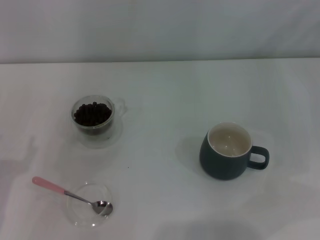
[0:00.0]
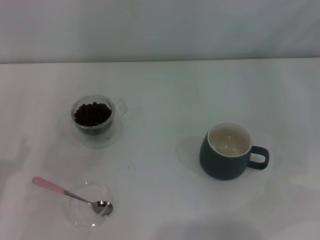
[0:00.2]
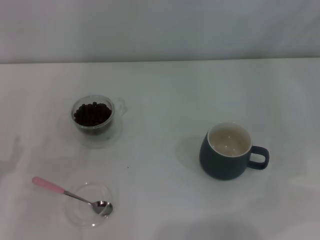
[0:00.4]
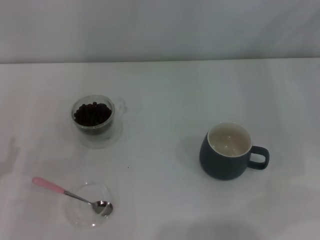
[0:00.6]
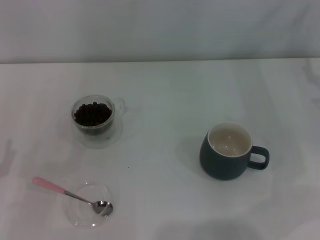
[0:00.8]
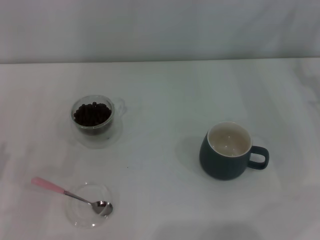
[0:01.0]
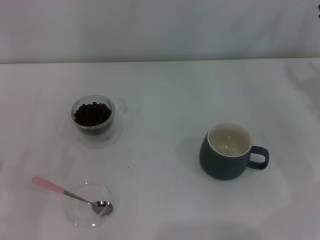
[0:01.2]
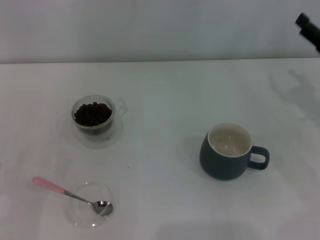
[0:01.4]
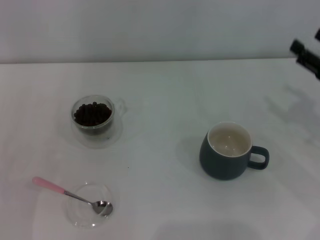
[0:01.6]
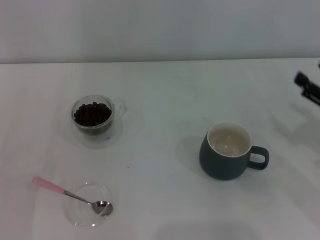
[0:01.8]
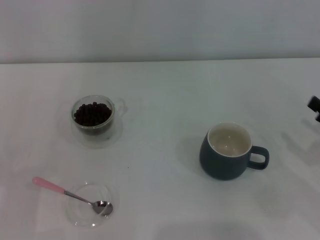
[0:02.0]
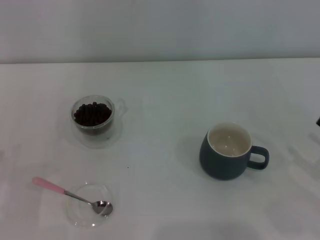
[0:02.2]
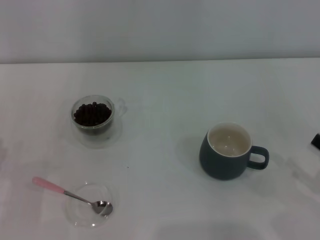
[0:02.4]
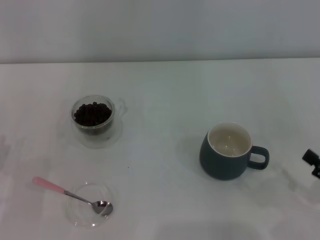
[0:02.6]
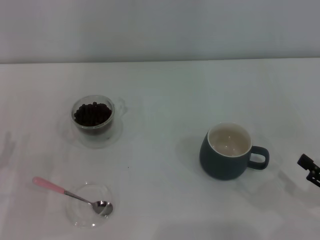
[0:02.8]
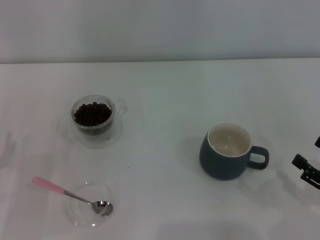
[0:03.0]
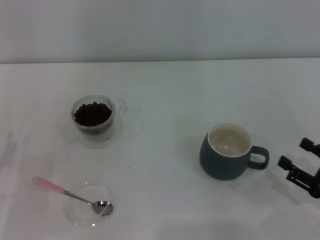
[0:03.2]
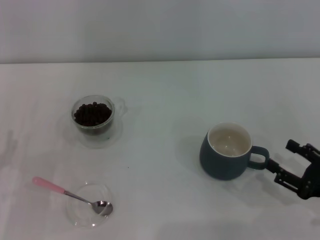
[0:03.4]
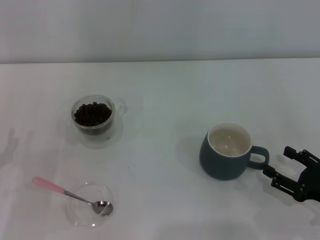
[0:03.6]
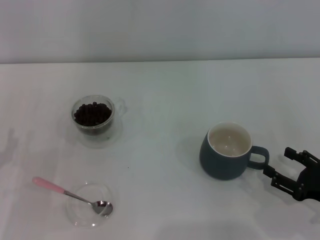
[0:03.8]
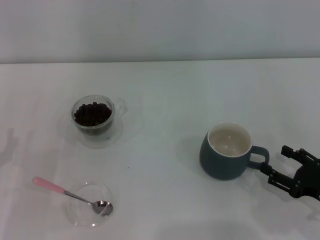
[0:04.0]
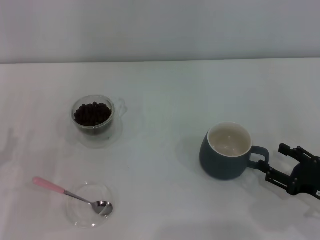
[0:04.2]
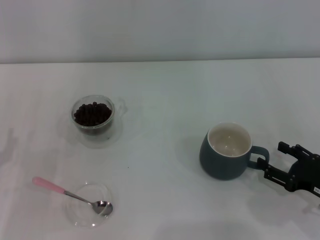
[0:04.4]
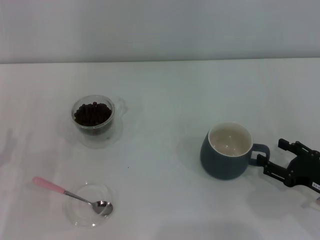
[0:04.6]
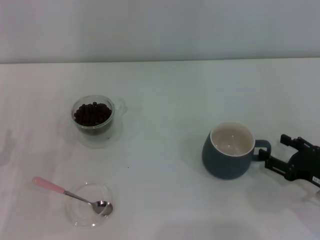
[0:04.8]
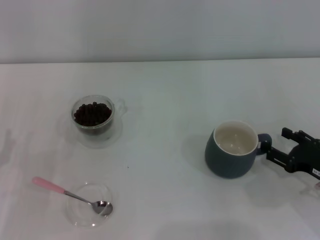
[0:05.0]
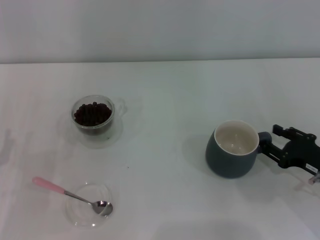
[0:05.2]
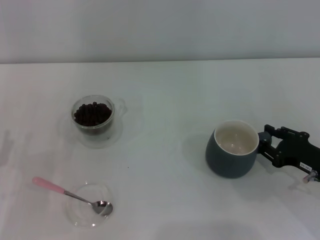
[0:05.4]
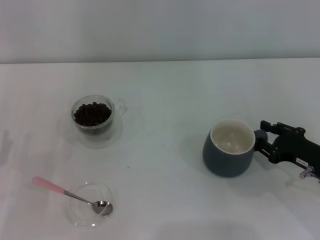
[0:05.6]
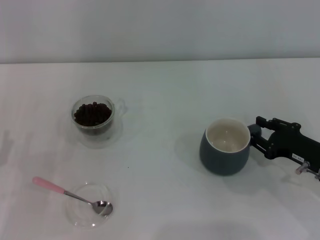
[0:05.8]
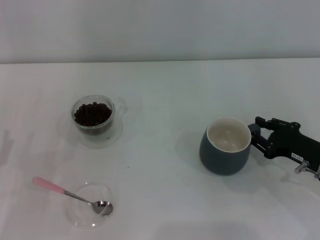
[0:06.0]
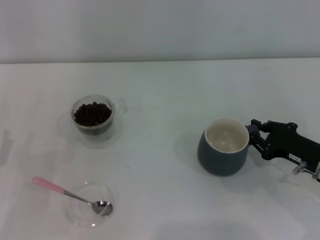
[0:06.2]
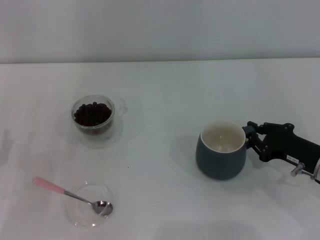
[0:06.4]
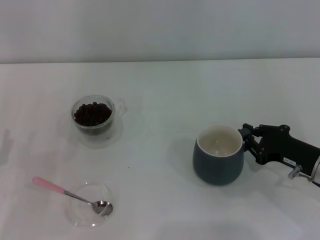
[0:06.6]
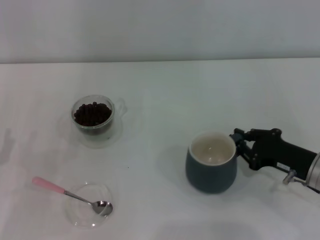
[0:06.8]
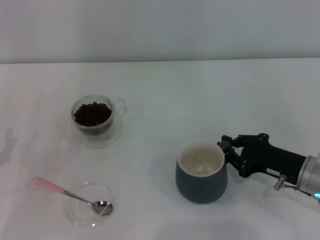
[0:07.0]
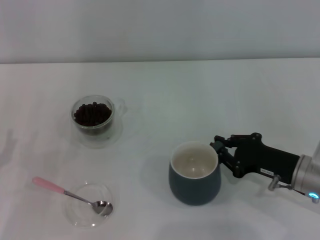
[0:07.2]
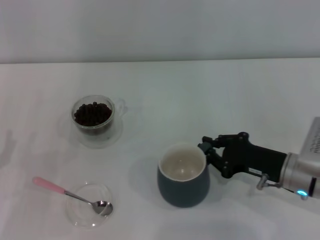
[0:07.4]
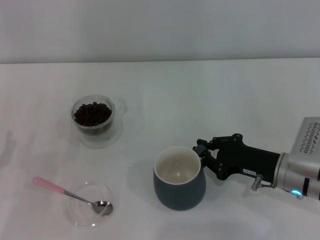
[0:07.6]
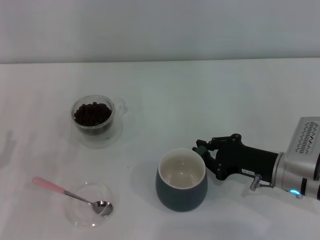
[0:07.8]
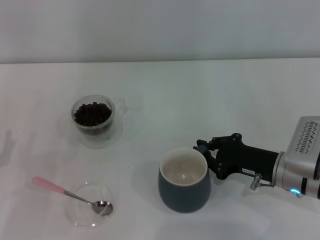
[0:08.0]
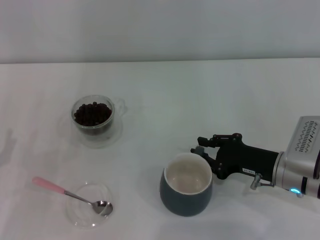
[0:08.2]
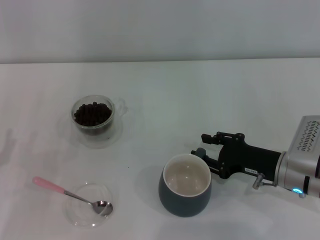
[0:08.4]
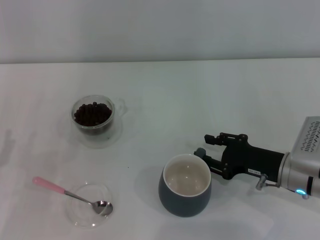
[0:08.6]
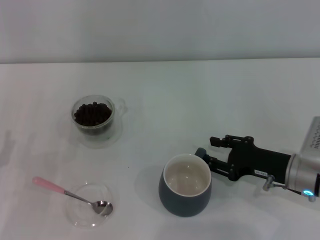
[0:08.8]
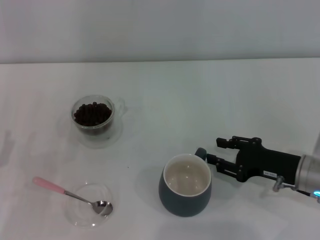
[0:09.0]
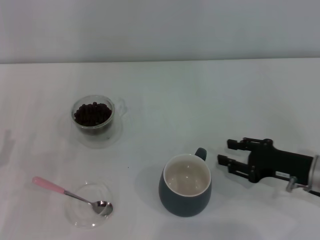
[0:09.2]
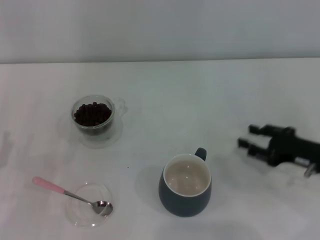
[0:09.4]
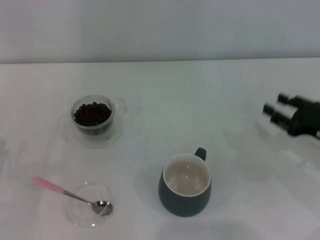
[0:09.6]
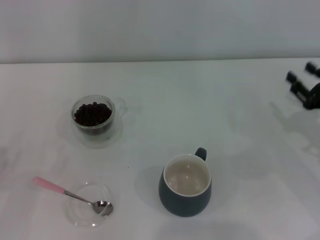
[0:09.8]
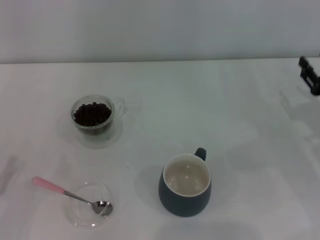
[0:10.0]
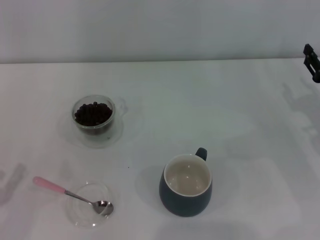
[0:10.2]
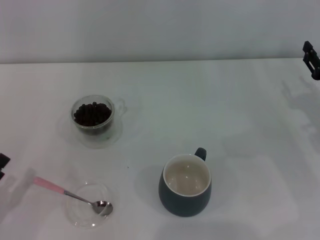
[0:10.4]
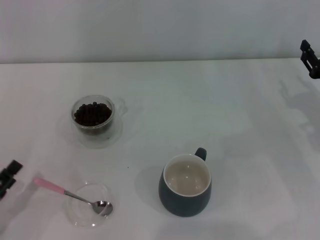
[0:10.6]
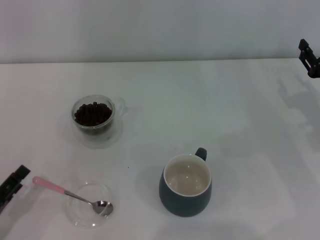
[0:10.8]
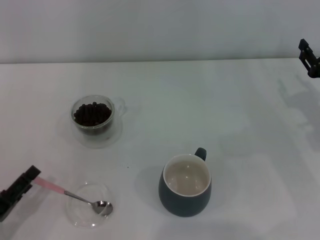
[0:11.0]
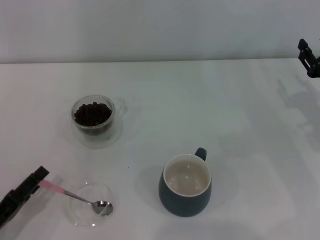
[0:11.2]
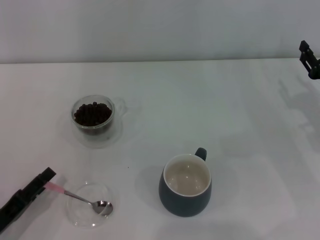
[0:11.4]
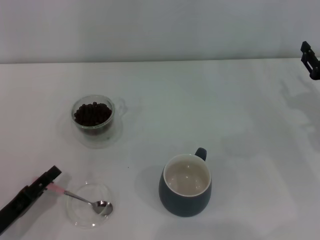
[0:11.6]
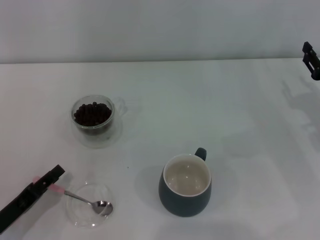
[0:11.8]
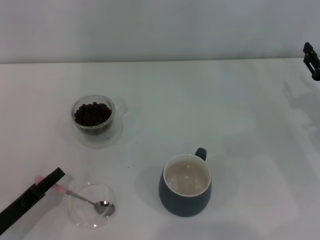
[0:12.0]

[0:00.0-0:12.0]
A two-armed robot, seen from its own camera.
Task of the whole recording: Use a pink spoon to take out the coffee beans from the glass and pour them into the gray cup.
Step, 0:00.0 to 0:09.2: Move the cup to the center of view with the left gripper.
0:00.0 to 0:01.6: The right gripper is displaced backward by roughly 5 cm.
0:01.6 to 0:03.0: The right gripper is displaced backward and downward by about 15 cm.
0:03.0 to 0:04.4: The right gripper heads forward, covering some 5 cm.
0:04.4 to 0:06.0: The right gripper travels forward by about 5 cm, and closes.
0:06.0 to 0:07.6: The right gripper travels to the left by some 5 cm, and closes up.
0:07.6 to 0:09.0: The right gripper opens up.
0:09.0 to 0:10.4: The left gripper goes approximately 5 cm backward. Meanwhile the right gripper moves to the right and forward, about 10 cm.
0:10.4 to 0:12.0: The left gripper moves roughly 5 cm, and closes up.

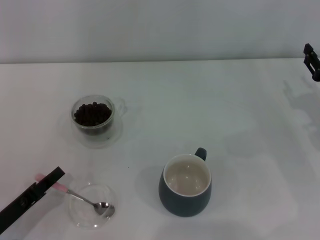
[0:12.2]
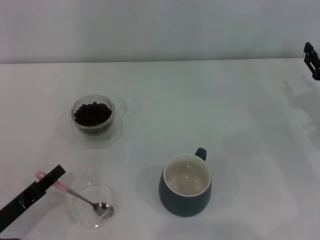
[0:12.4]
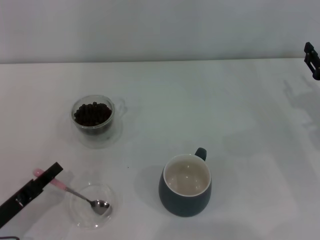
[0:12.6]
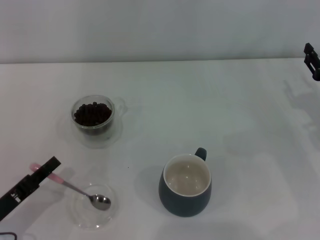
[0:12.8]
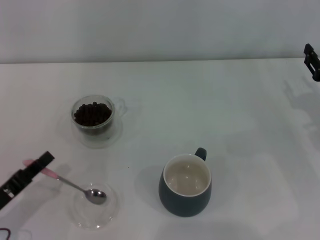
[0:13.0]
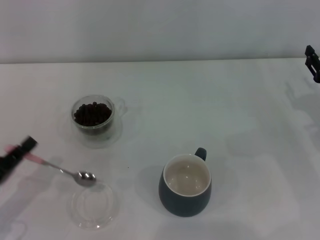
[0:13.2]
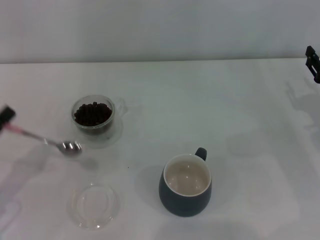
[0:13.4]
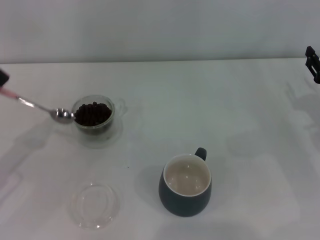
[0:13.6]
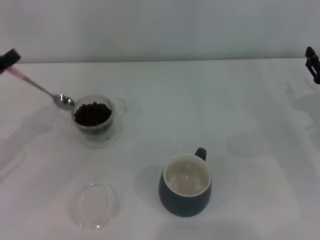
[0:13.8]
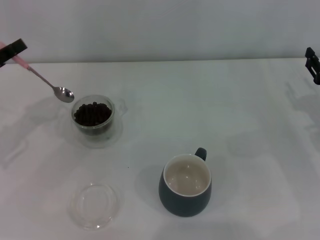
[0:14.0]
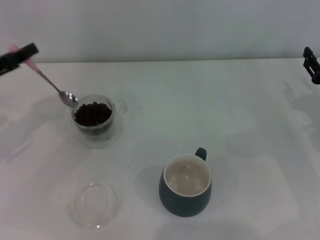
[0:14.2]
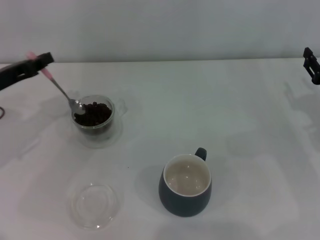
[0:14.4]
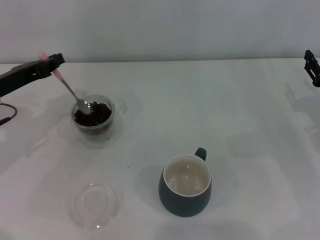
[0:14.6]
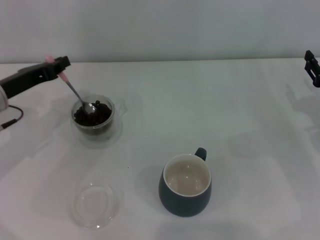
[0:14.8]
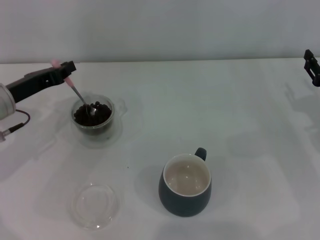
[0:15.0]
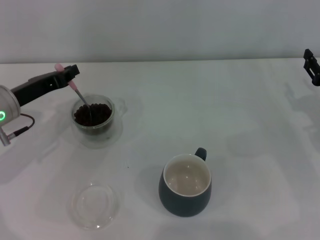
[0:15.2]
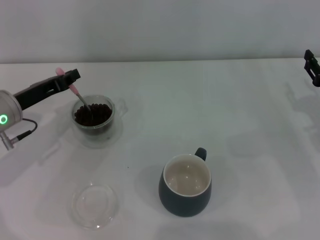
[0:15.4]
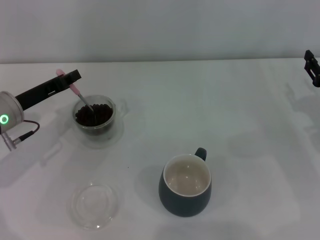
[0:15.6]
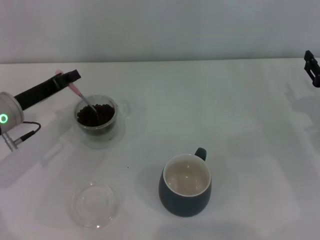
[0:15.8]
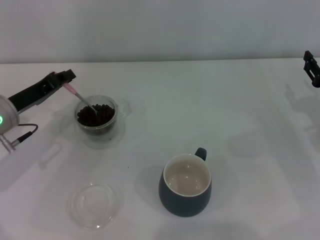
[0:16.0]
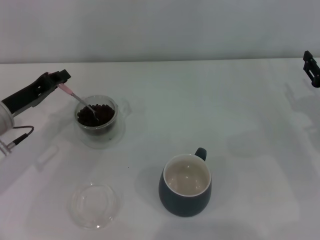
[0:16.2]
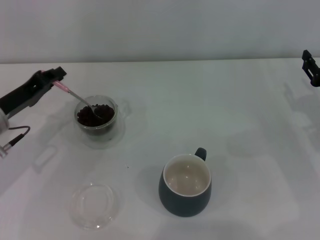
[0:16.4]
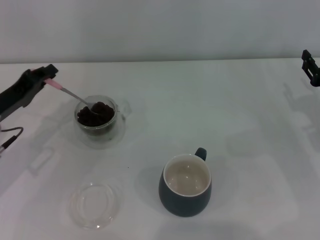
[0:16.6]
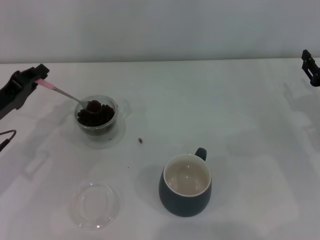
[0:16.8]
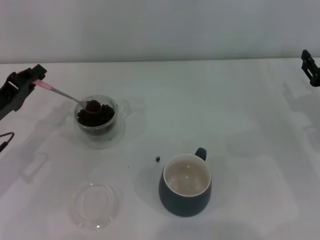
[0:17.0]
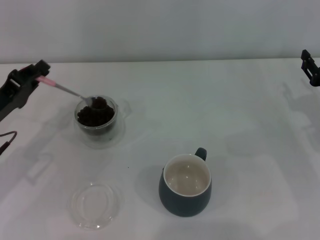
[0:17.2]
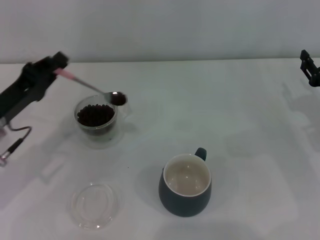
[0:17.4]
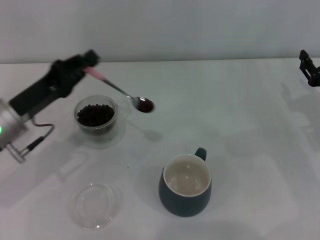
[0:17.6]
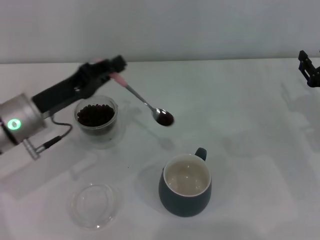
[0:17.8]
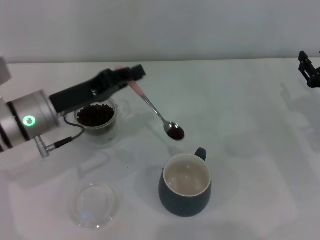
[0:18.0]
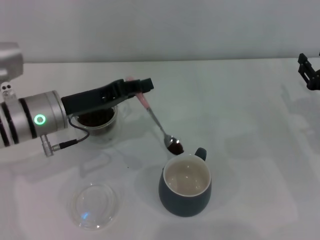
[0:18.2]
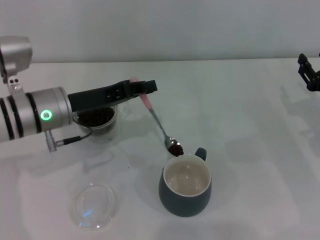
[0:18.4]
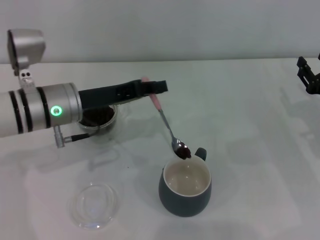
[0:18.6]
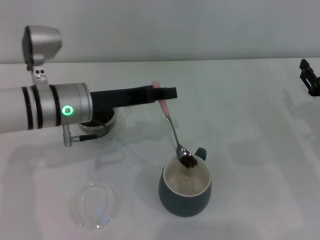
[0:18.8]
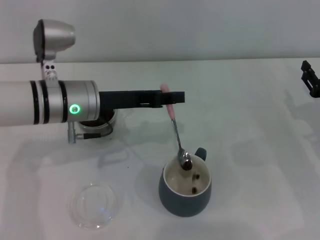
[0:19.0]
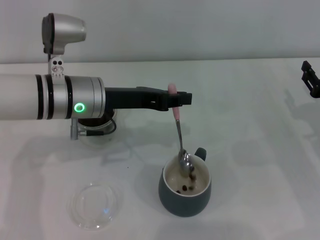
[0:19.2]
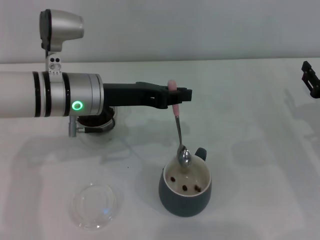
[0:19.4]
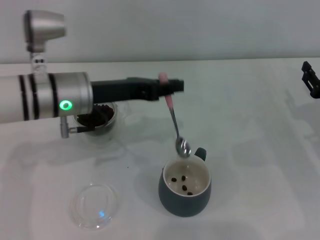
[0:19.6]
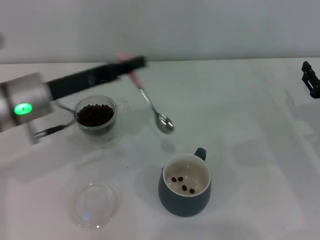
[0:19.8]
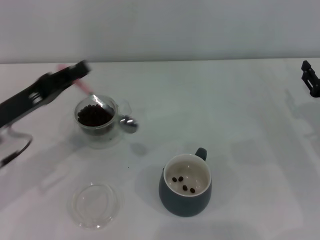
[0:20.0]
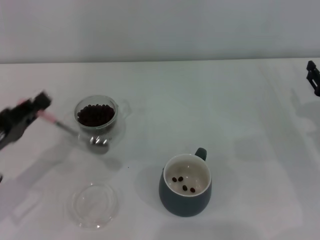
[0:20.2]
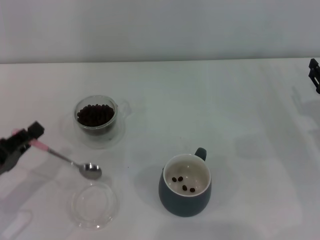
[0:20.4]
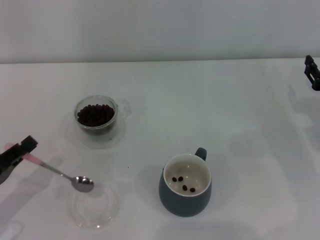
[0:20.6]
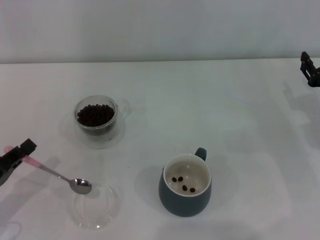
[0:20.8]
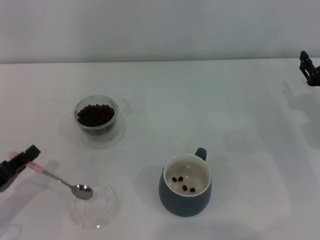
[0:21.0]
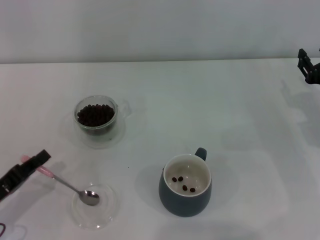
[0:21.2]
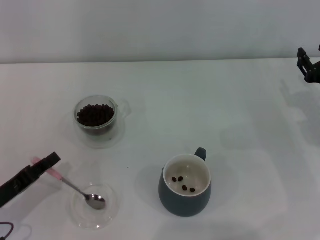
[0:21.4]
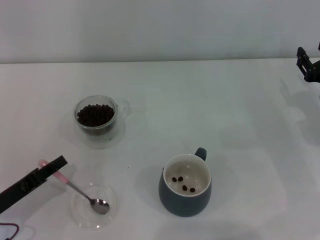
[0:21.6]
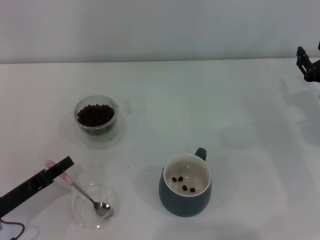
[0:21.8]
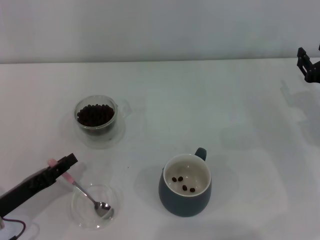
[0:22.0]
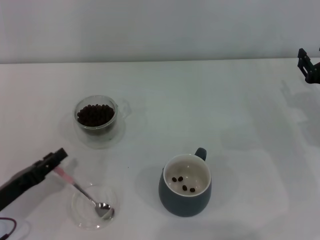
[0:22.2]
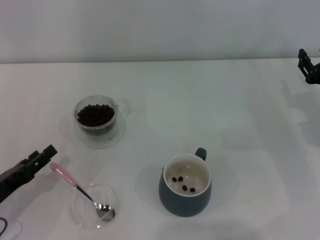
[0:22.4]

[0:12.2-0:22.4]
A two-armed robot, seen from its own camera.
Task of the whole recording: Use a pink spoon to take out the coffee beans from the glass and pour them into the gray cup.
0:12.2 to 0:13.6: The left gripper heads upward and forward, covering approximately 10 cm.
0:13.6 to 0:15.2: The left gripper is displaced forward and to the right by approximately 15 cm.
0:16.6 to 0:18.0: The left gripper goes roughly 10 cm to the right.
0:18.0 to 0:19.4: The left gripper shifts approximately 5 cm to the right.
0:19.4 to 0:21.0: The left gripper heads to the left, backward and downward, covering about 25 cm.
0:21.0 to 0:22.4: The left gripper opens.
